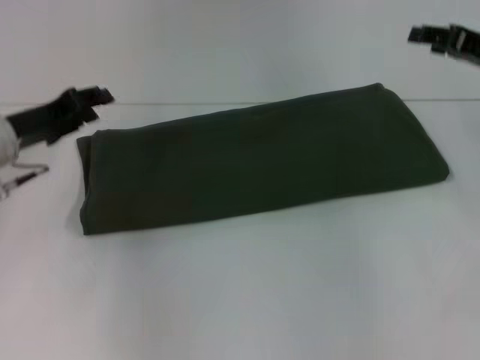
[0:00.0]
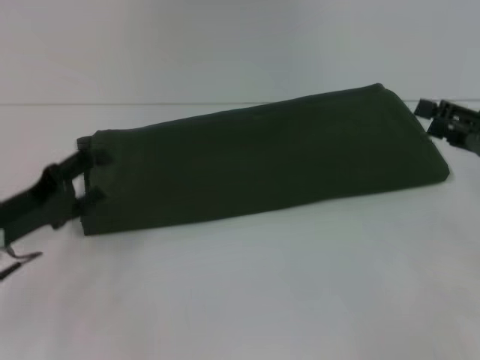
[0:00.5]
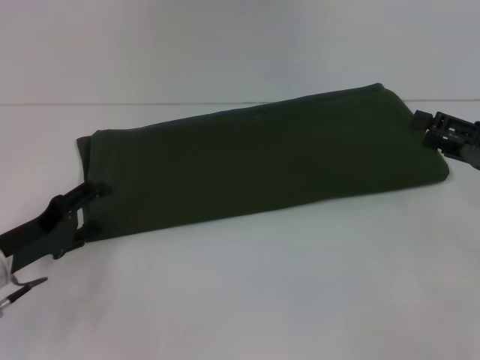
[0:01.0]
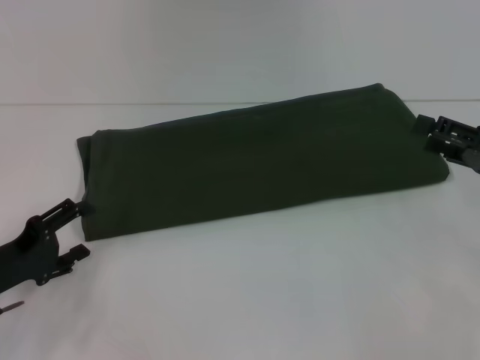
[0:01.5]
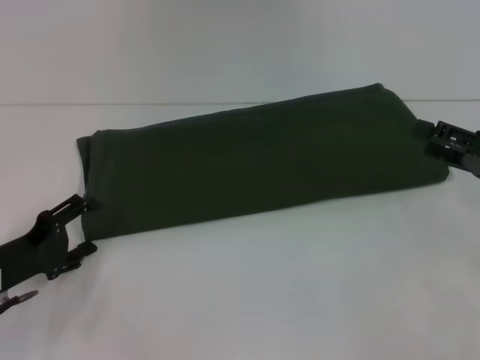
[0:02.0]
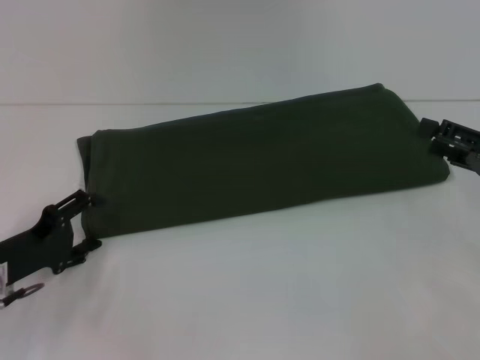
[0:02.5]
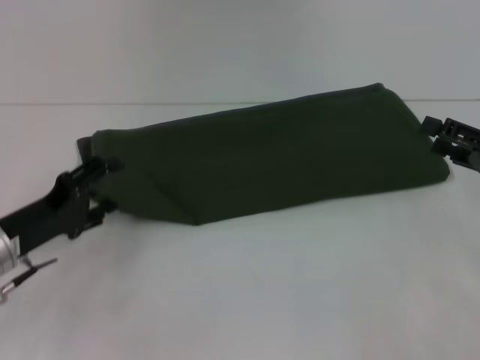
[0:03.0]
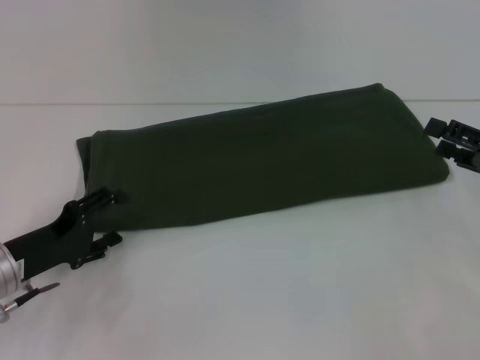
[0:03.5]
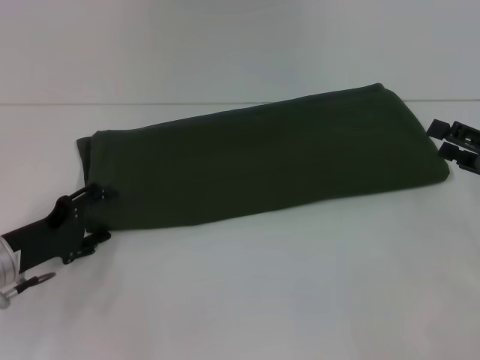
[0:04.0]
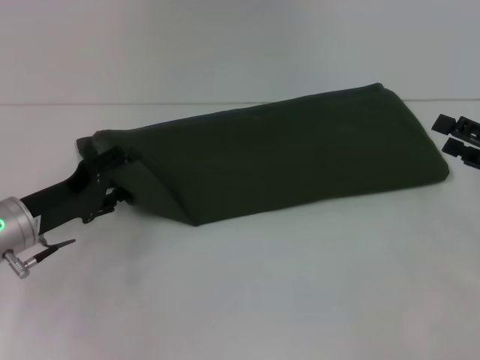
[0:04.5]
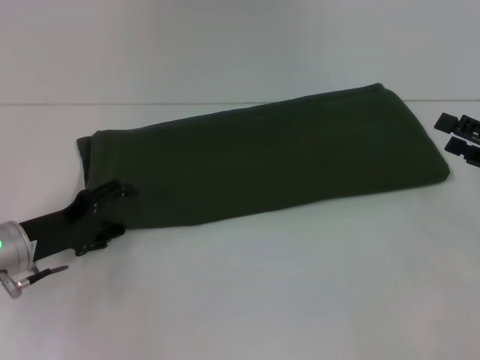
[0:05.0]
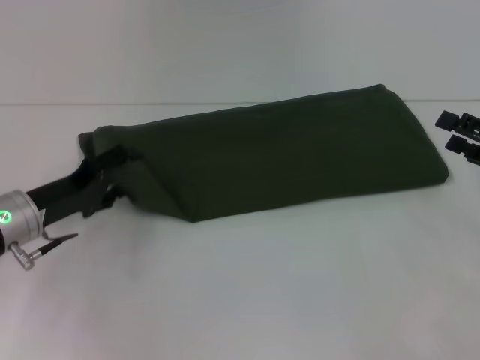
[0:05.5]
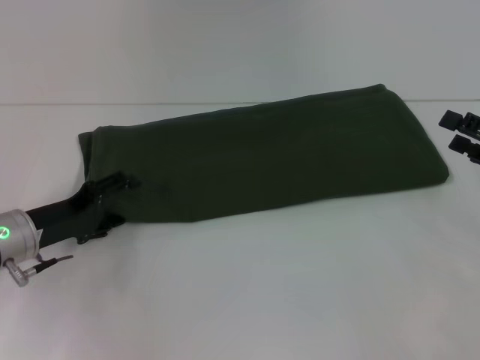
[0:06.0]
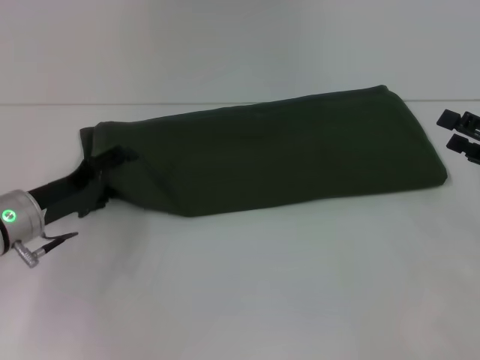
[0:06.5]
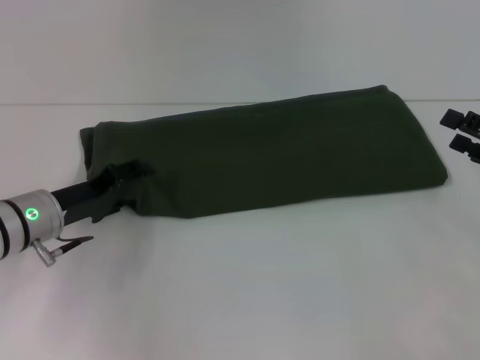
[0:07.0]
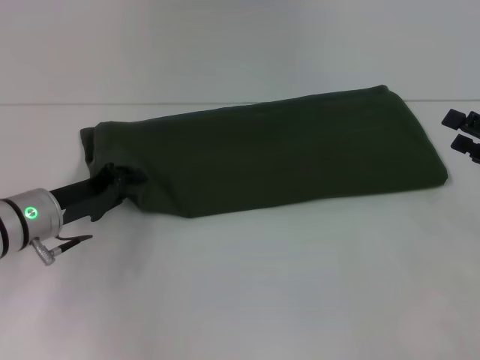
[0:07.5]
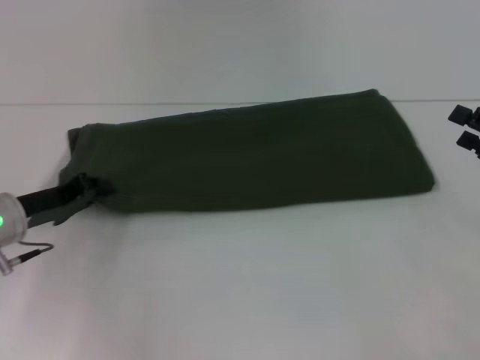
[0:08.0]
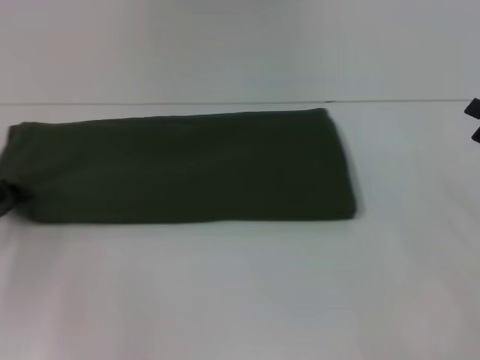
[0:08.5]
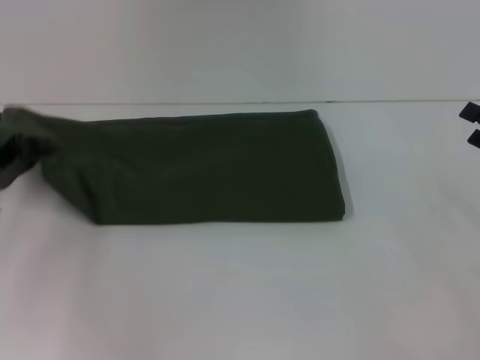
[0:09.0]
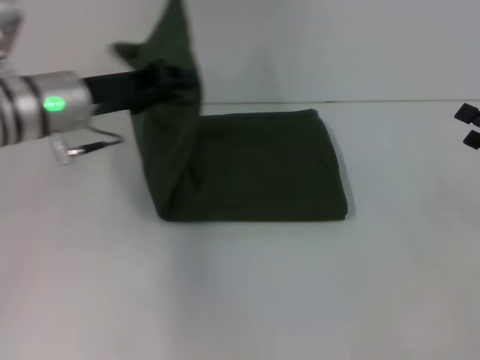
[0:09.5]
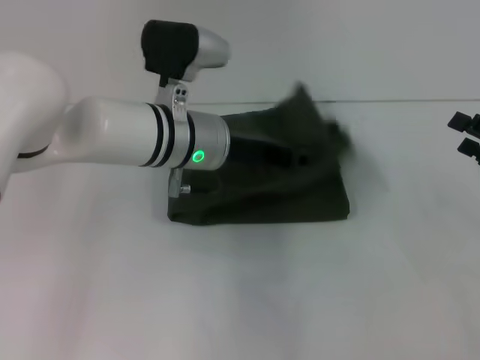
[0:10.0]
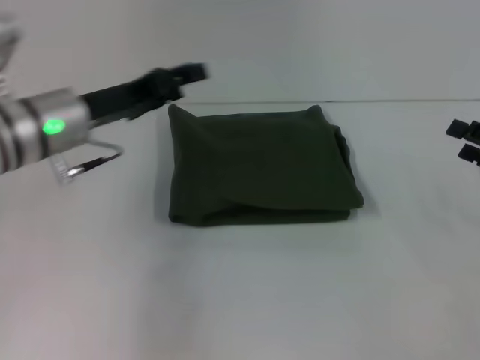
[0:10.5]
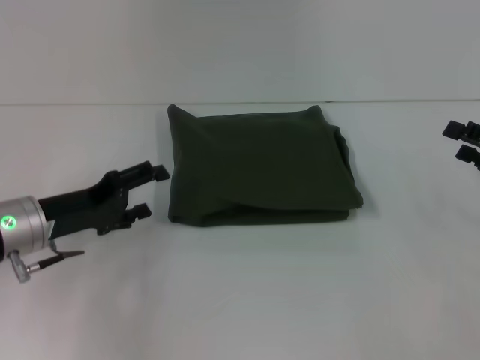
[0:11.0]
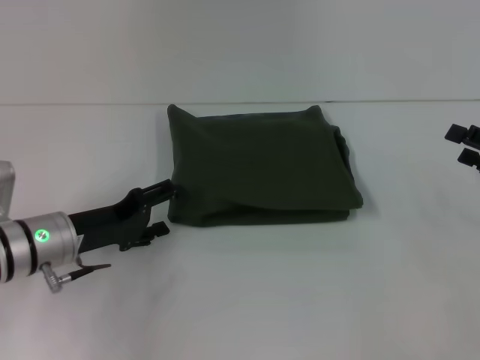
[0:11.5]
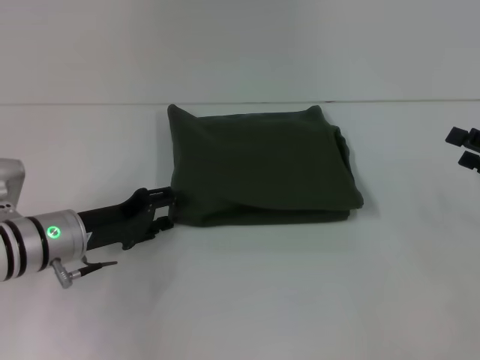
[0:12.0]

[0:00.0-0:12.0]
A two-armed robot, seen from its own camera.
Step, 0:00.0 to 0:10.0: Fold the clothes with your left hand.
0:00.0 to 0:02.0: The two grippers go some 15 cm backward and downward. The right gripper opens its fingers, while the left gripper opens its fingers.
0:02.0 to 0:04.0: There are only small adjustments of the grippers.
0:04.0 to 0:06.0: There are only small adjustments of the grippers.
0:06.0 to 0:08.0: The left gripper closes its fingers.
0:08.0 to 0:10.0: The left gripper travels to the right and upward by some 20 cm.
0:10.0 to 0:12.0: The left gripper goes about 20 cm to the left, downward and backward, and opens up.

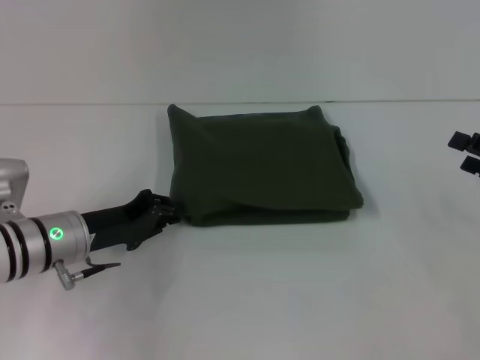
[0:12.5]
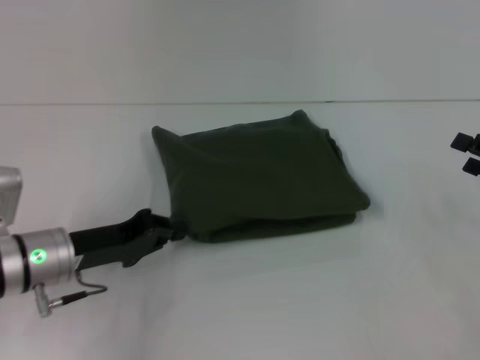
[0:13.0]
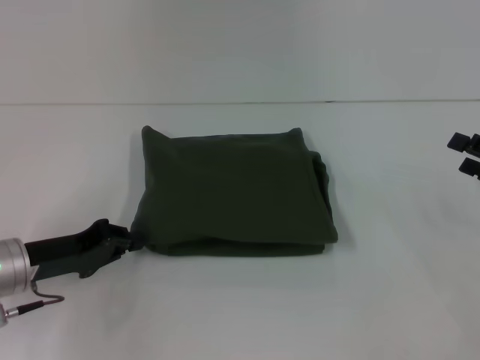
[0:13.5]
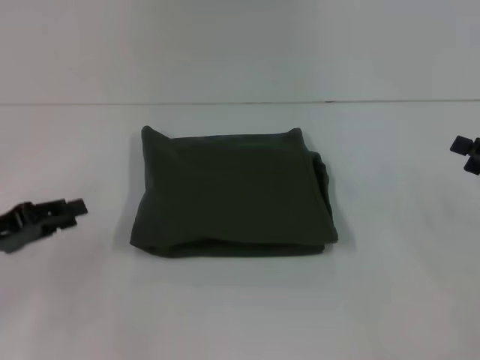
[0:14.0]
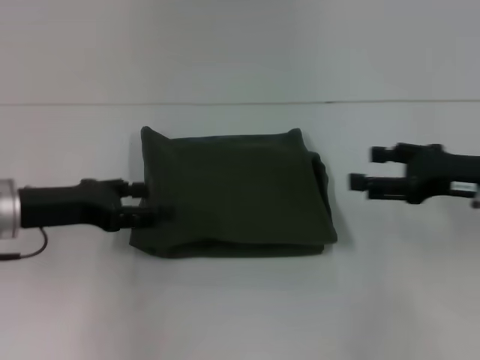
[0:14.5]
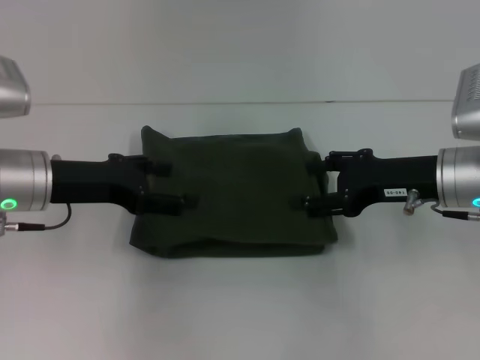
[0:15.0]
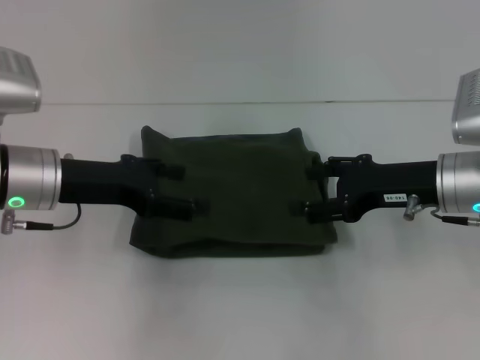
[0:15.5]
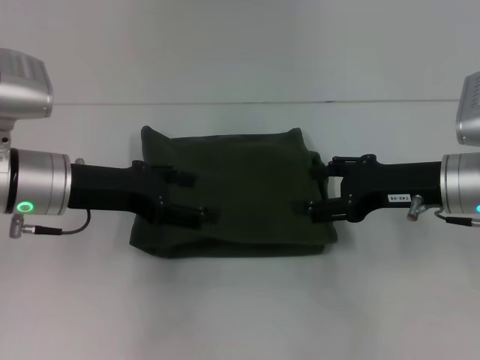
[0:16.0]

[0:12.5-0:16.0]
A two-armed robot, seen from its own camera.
0:12.5 to 0:14.5: The right gripper goes some 10 cm to the left. The left gripper goes roughly 5 cm upward, and closes and opens again.
0:14.5 to 0:16.0: The left gripper ends up about 5 cm from where it was, while the right gripper moves to the left, some 5 cm.

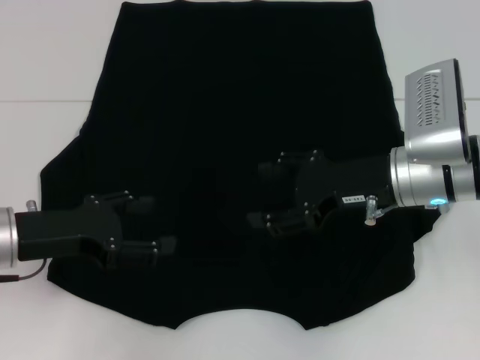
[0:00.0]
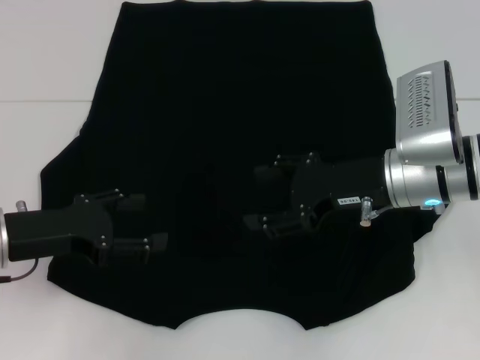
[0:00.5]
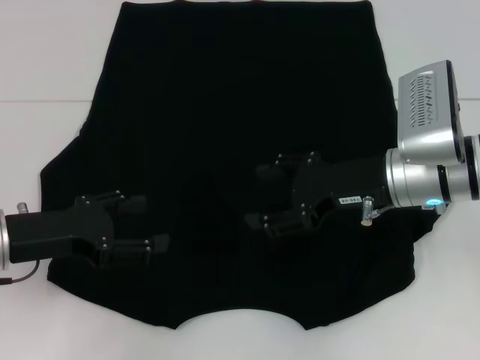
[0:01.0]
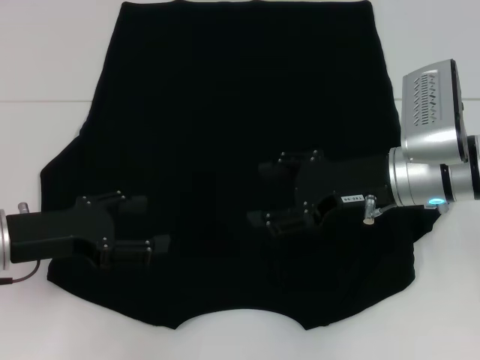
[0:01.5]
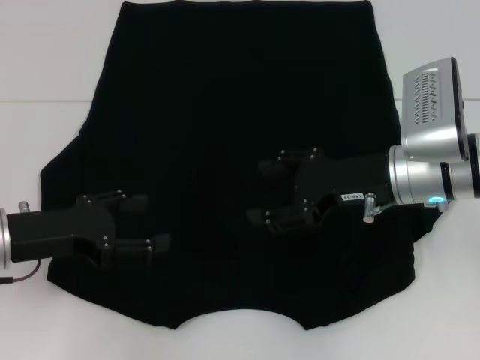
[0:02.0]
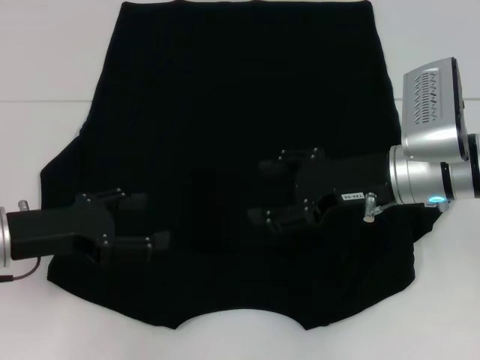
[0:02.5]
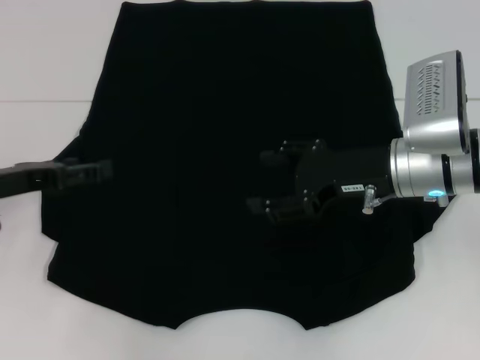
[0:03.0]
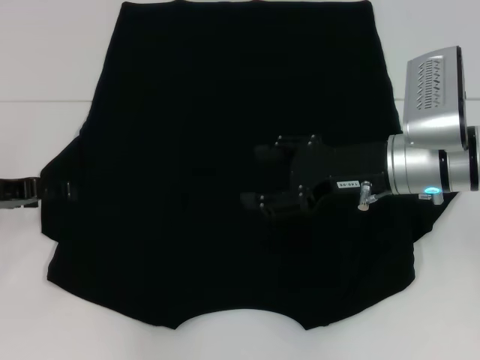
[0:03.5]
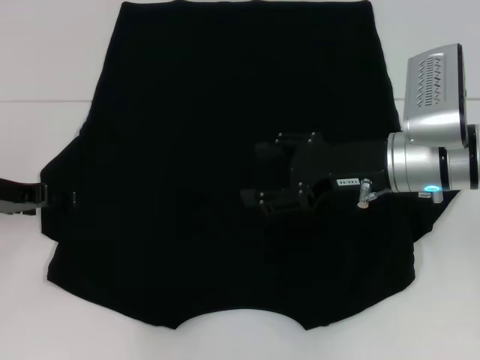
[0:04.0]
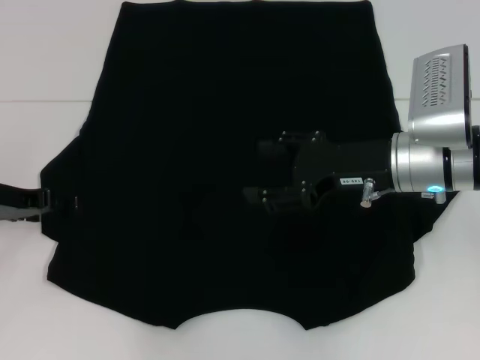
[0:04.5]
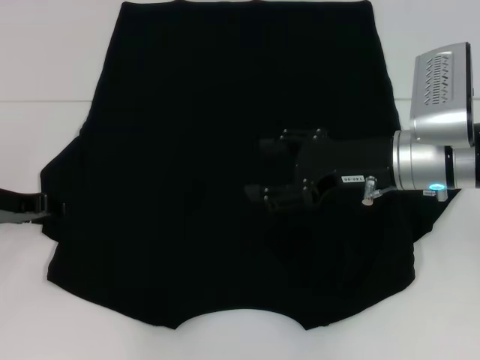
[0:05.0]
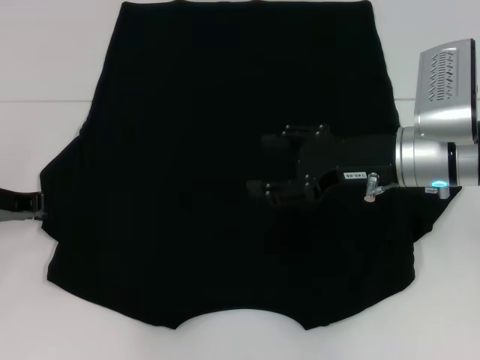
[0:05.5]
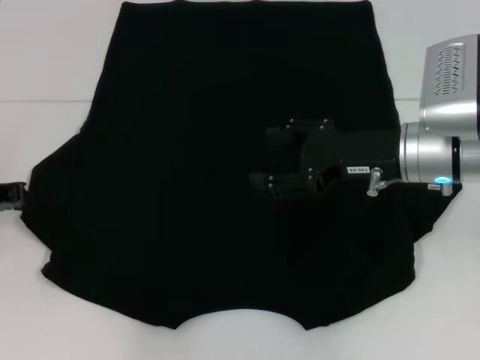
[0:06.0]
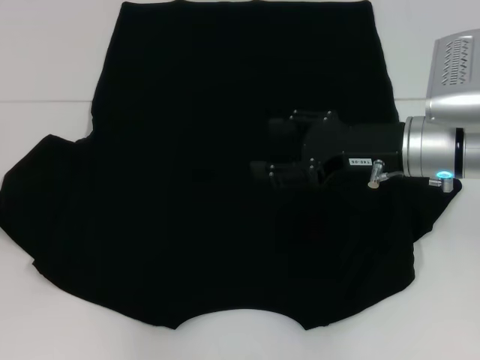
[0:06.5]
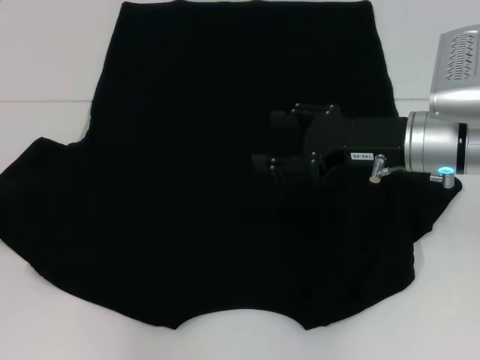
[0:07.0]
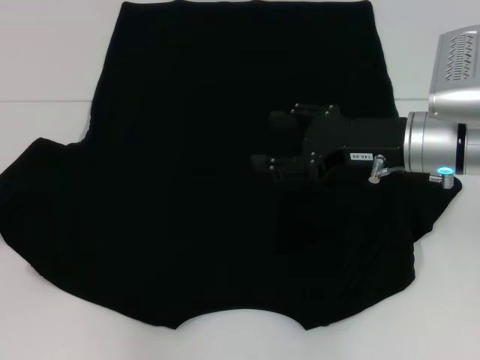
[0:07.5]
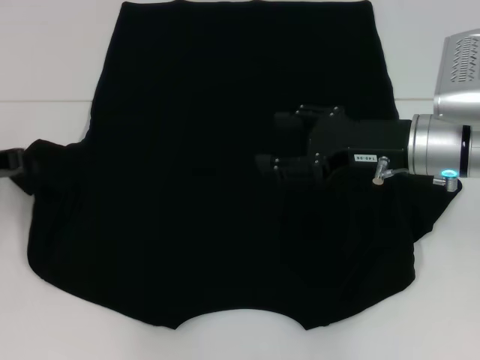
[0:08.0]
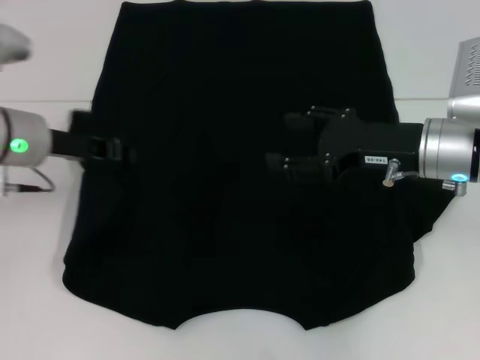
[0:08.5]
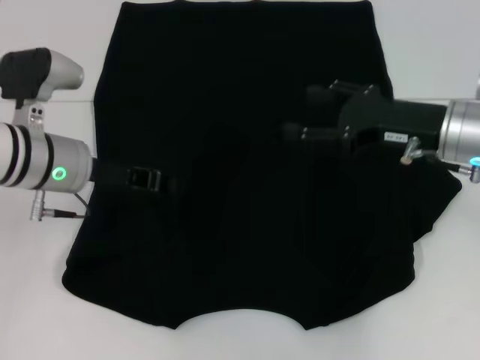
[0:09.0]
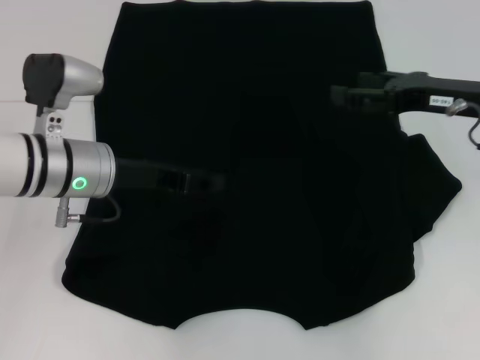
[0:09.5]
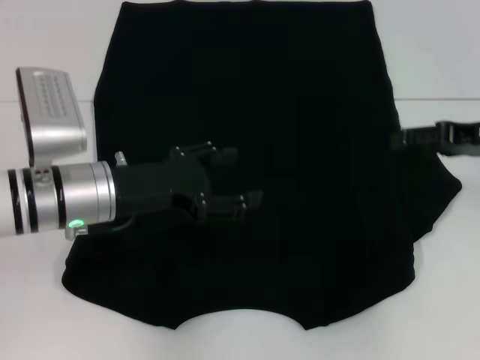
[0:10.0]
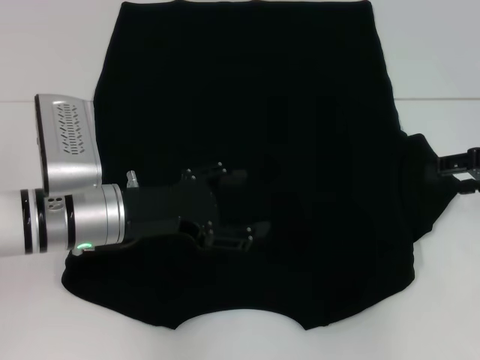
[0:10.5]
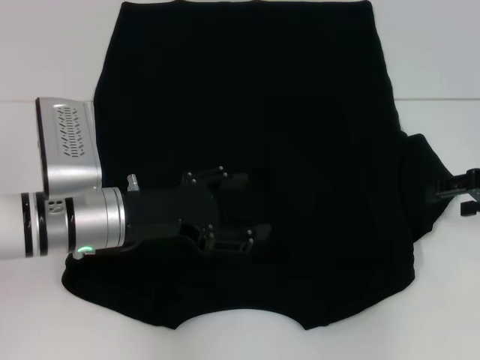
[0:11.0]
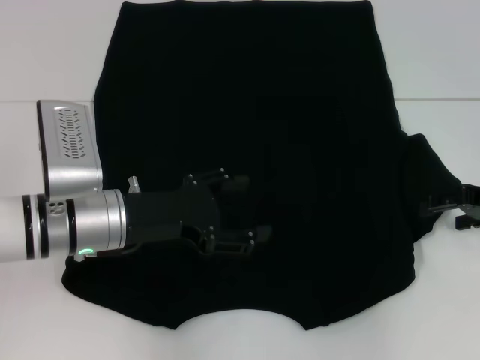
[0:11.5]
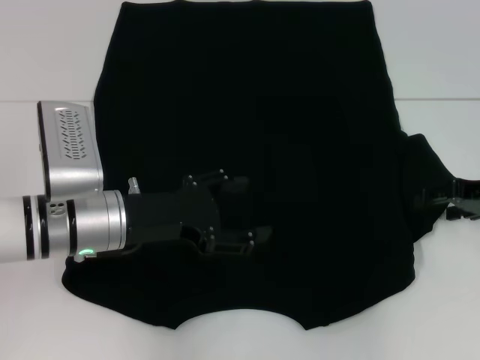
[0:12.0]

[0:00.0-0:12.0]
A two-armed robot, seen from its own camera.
Step, 0:00.0 to 0:09.0: Fold the bottom left sleeve with your left hand.
0:00.0 to 0:02.0: Both grippers stay put.
0:02.0 to 0:04.0: The left gripper heads forward, covering roughly 5 cm.
0:04.0 to 0:06.0: The left gripper closes up.
0:06.0 to 0:08.0: There are only small adjustments of the grippers.
0:08.0 to 0:10.0: The two grippers go about 15 cm to the right. The left gripper opens its fingers.
0:10.0 to 0:12.0: The grippers make only small movements.
